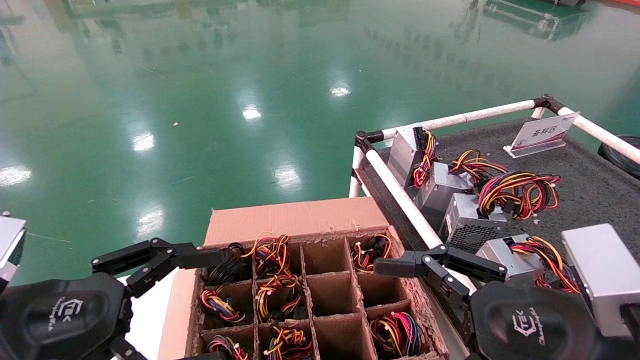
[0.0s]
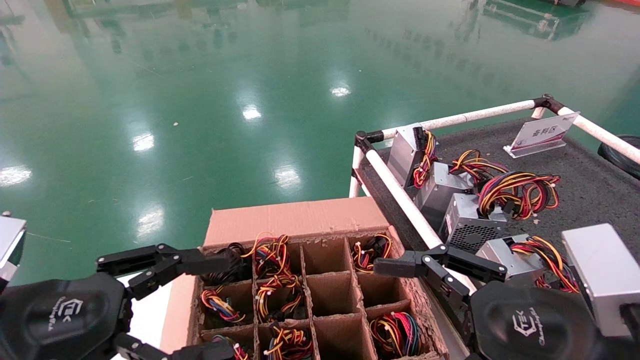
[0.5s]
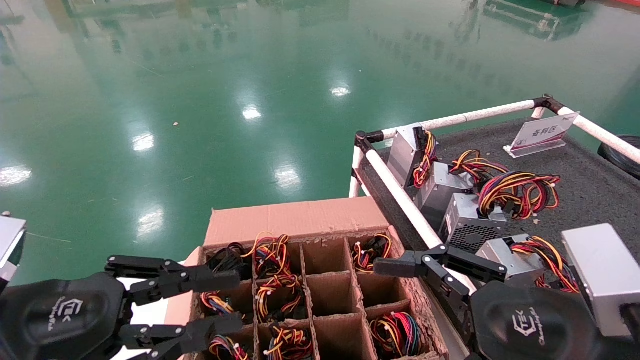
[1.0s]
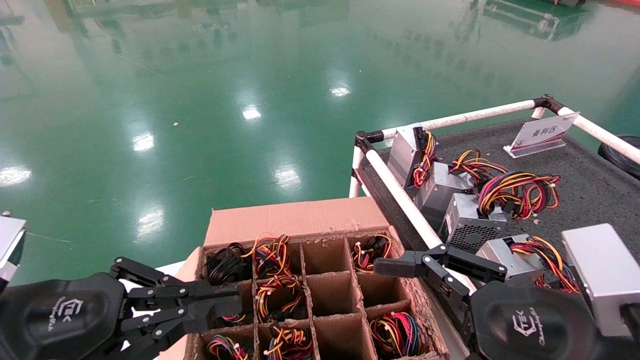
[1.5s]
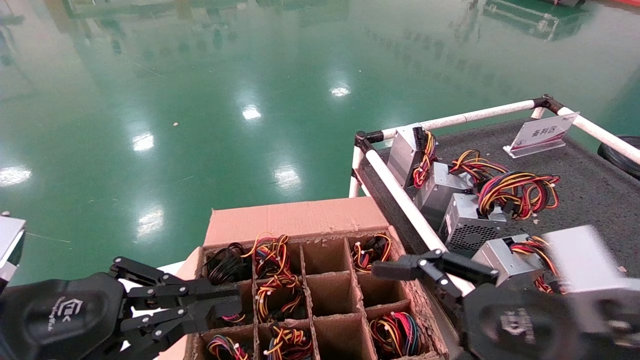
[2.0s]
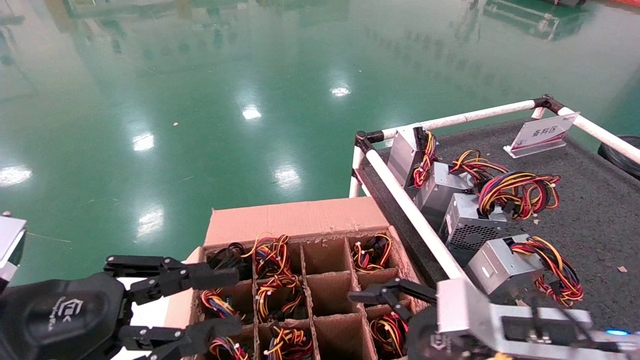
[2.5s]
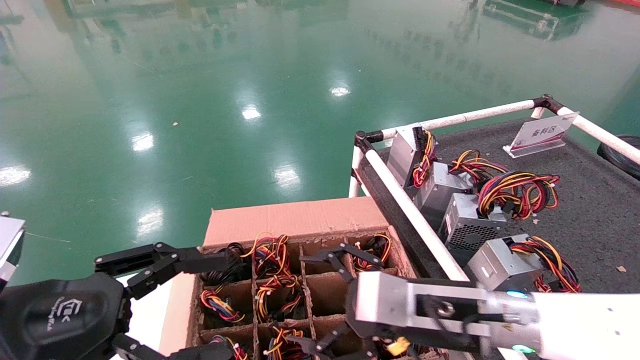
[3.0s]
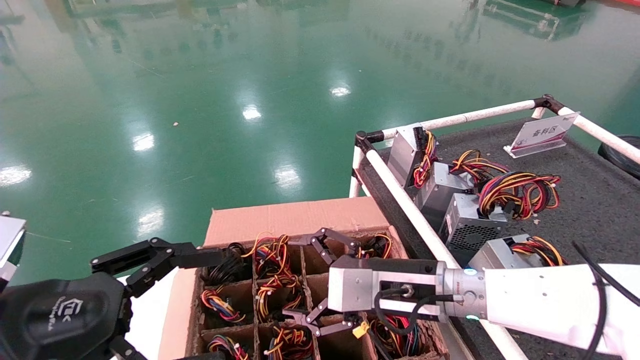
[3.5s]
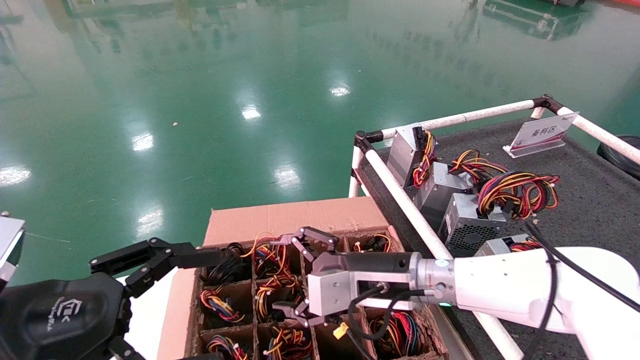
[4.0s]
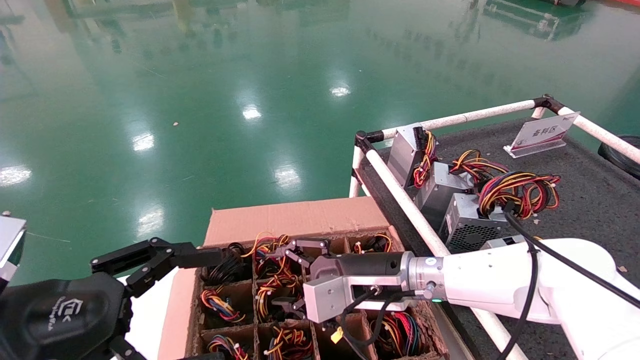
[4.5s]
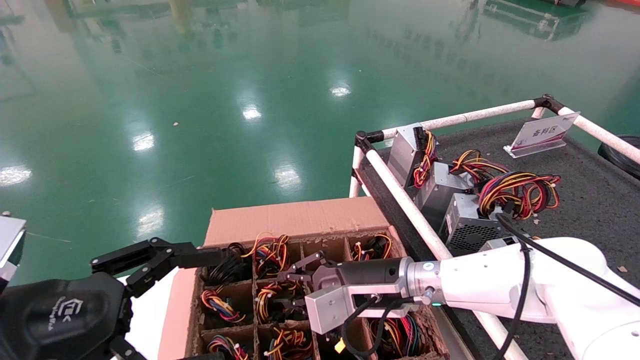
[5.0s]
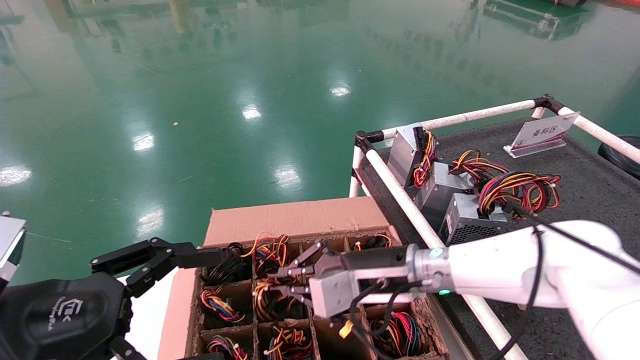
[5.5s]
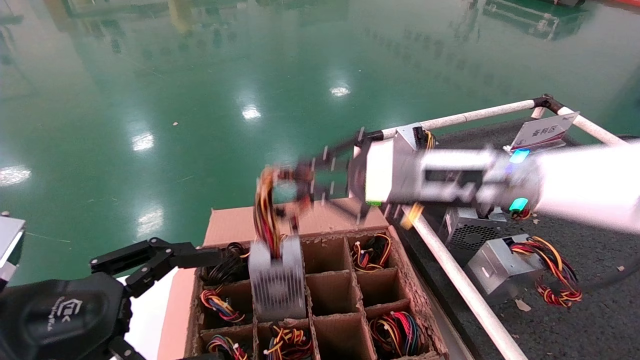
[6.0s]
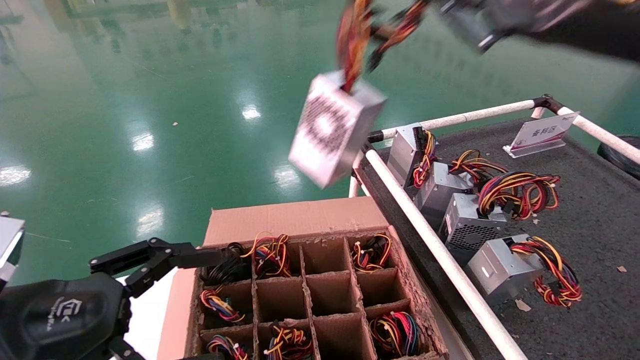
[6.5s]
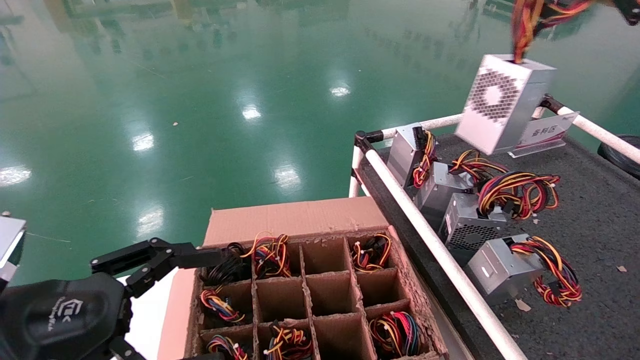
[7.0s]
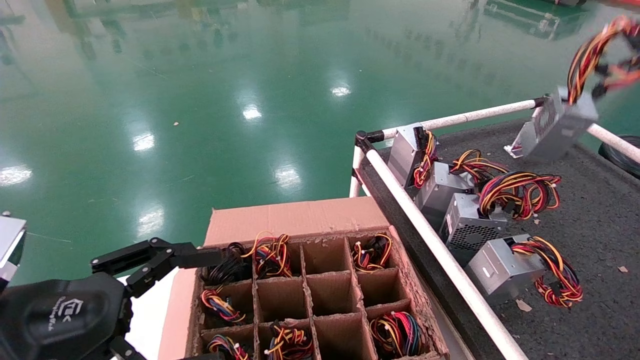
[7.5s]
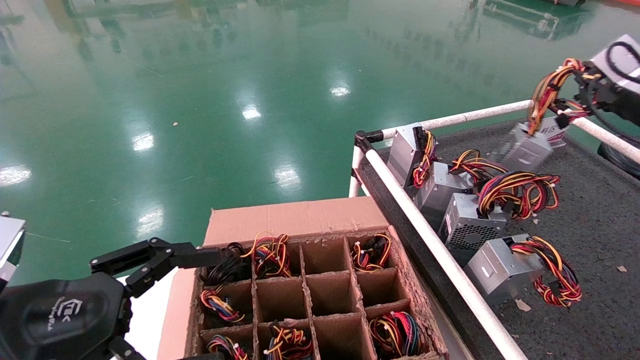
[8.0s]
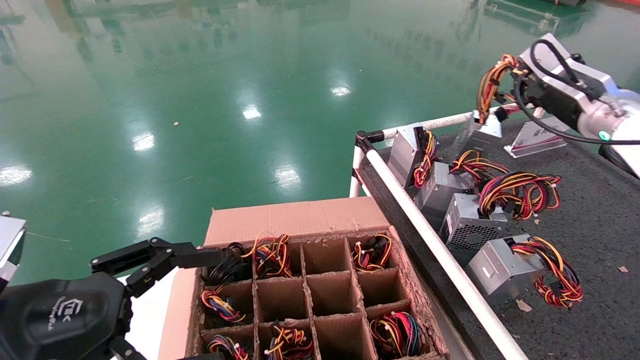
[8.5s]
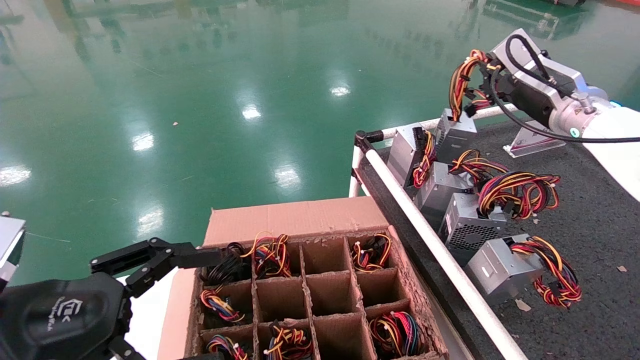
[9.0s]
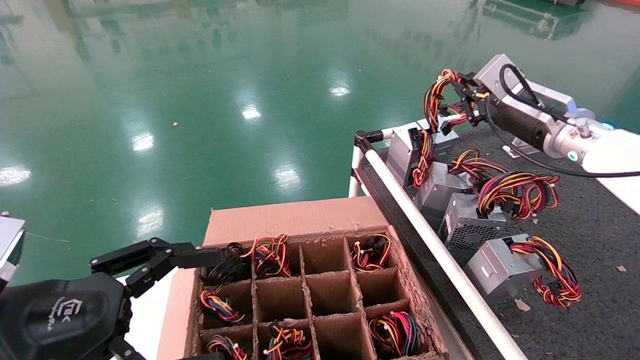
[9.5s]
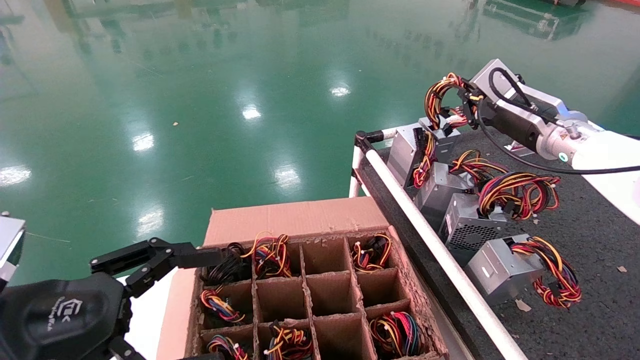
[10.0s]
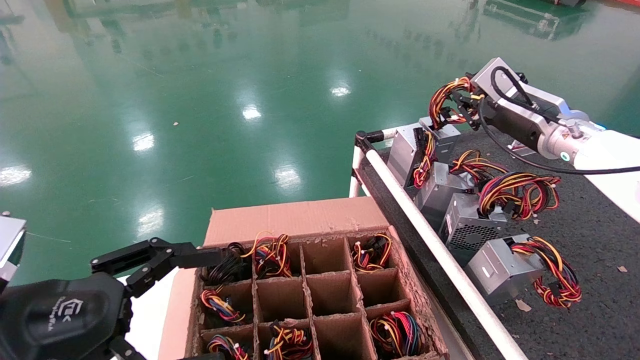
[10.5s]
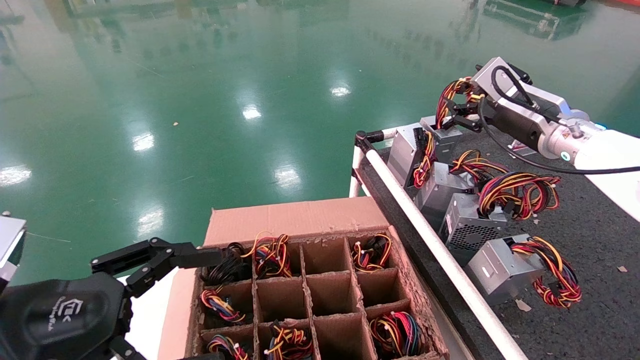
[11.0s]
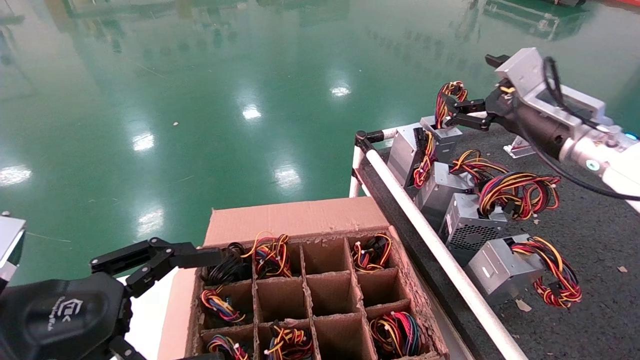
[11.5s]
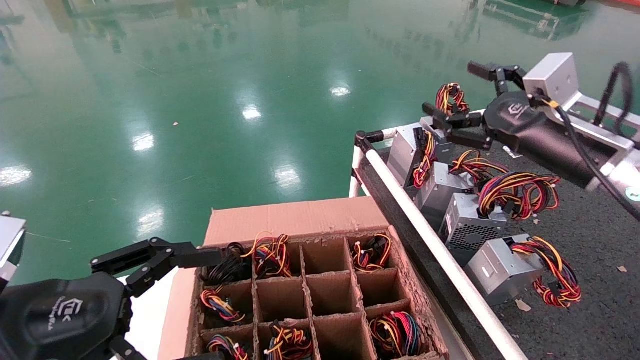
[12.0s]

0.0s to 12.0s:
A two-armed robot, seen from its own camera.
Step, 2.5s to 5.5s: Grab and lift the power supply from the large box.
Step, 6.0s to 10.5s: Place the power supply on the operating table.
0.0s to 2.0s: The left gripper closes its fingers.
2.0s to 4.0s: The right gripper shifts approximately 25 cm forward and to the left. The left gripper opens up.
4.0s to 6.0s: The right gripper moves upward, some 15 cm, and closes.
6.0s to 8.0s: The right gripper is displaced to the right by about 30 cm.
8.0s to 10.0s: The right gripper is displaced to the left by about 10 cm.
10.0s to 12.0s: The right gripper heads backward, covering about 10 cm, and opens up.

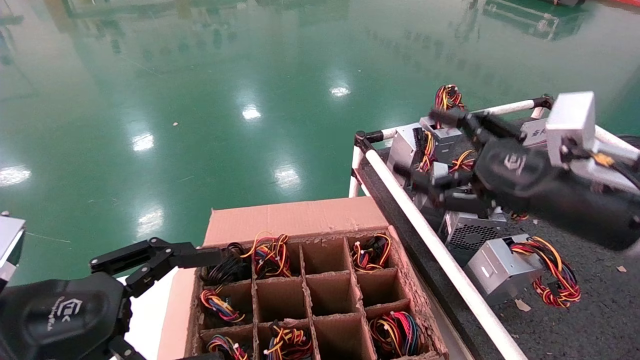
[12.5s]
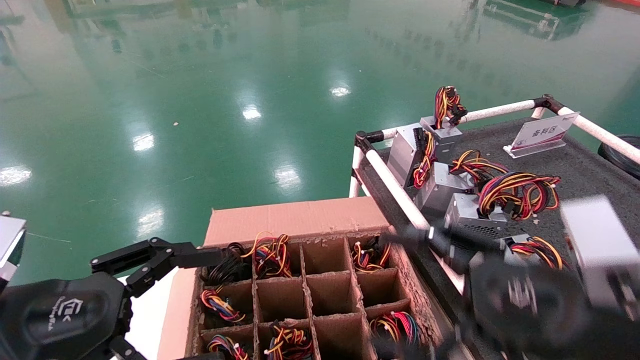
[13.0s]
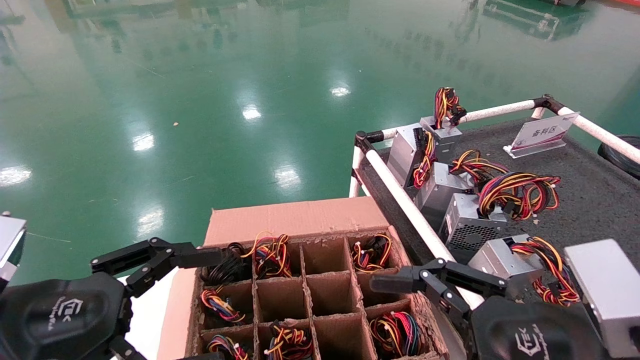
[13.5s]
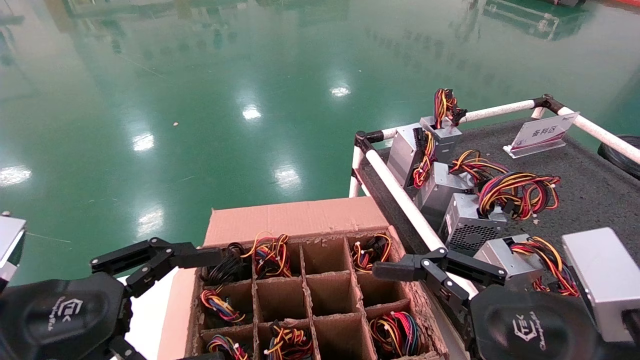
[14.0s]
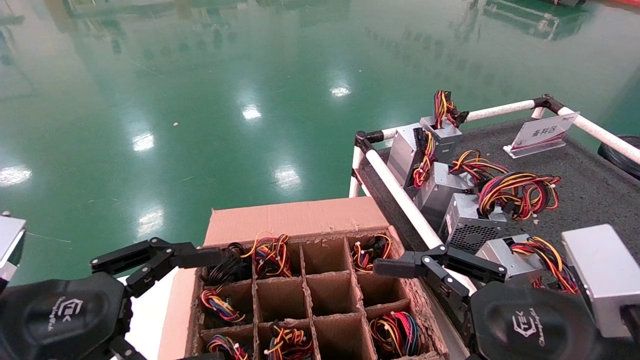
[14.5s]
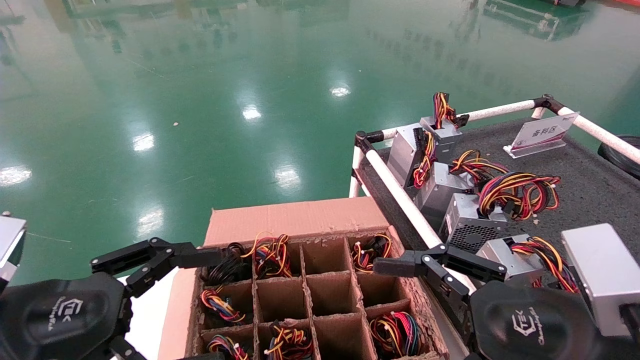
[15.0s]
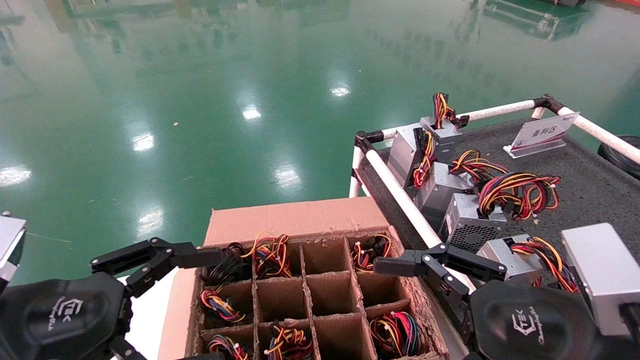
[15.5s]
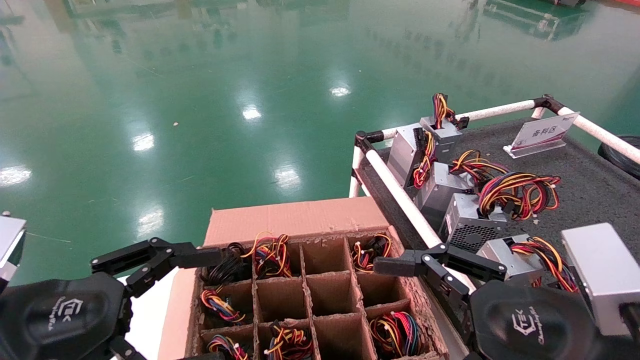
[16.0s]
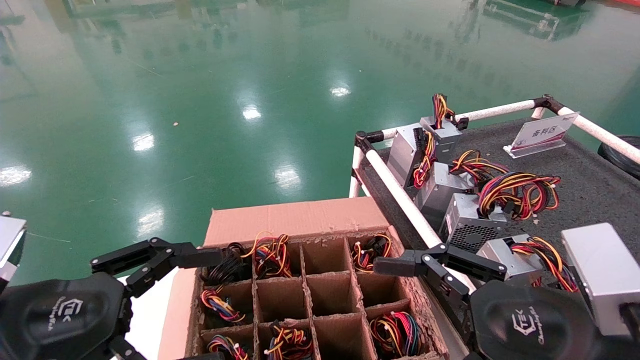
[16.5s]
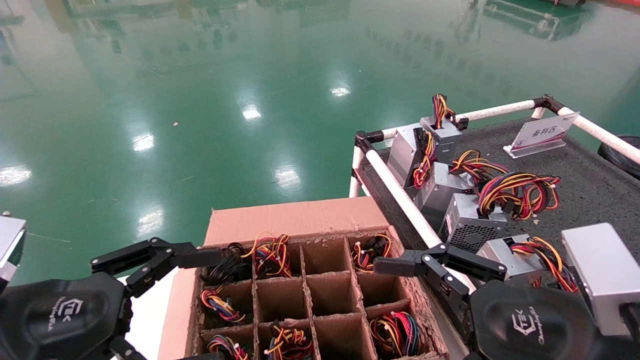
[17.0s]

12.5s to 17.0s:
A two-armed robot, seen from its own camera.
12.5s to 14.5s: The right gripper is displaced backward and downward by some 10 cm.
14.5s to 17.0s: Neither gripper changes place.
